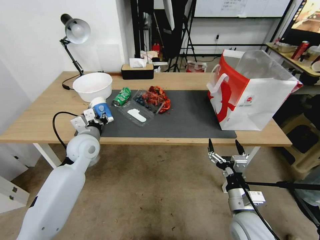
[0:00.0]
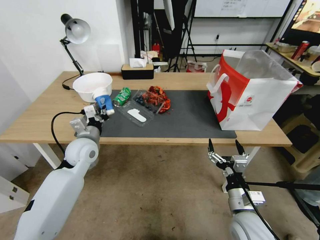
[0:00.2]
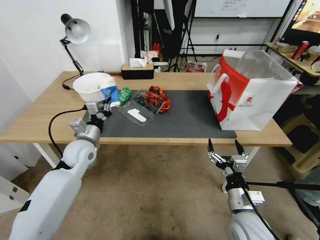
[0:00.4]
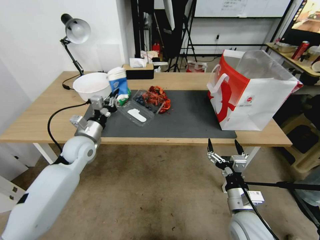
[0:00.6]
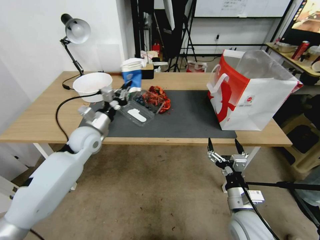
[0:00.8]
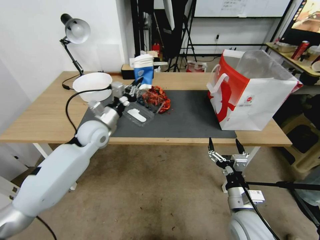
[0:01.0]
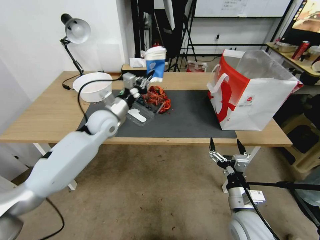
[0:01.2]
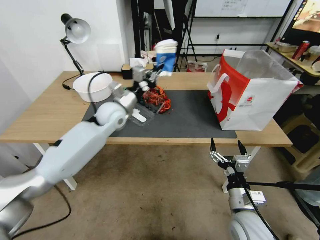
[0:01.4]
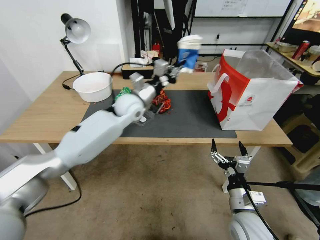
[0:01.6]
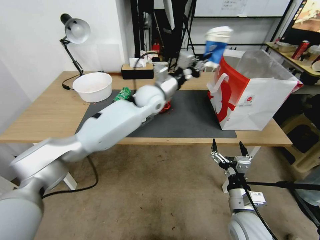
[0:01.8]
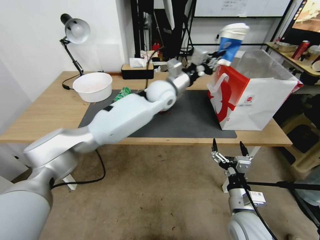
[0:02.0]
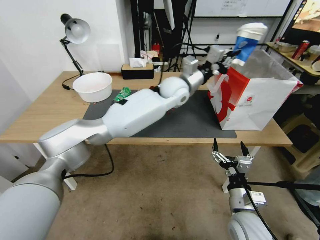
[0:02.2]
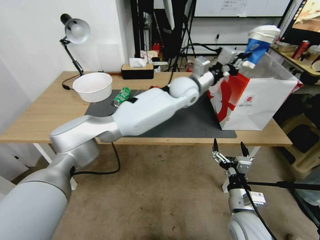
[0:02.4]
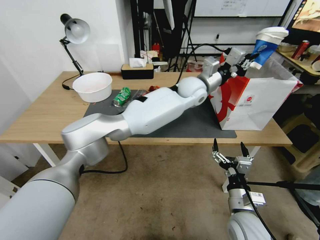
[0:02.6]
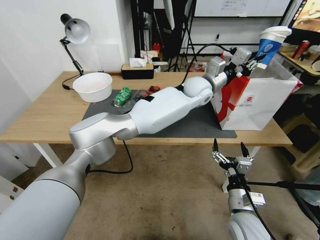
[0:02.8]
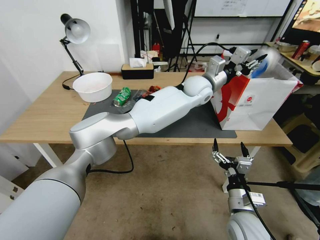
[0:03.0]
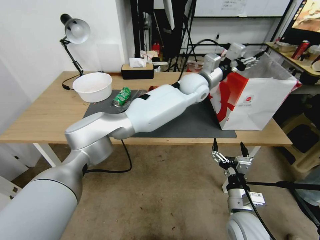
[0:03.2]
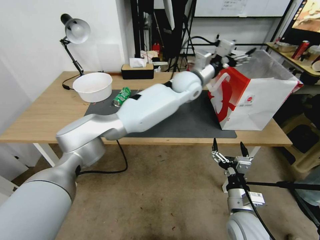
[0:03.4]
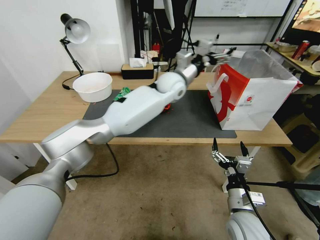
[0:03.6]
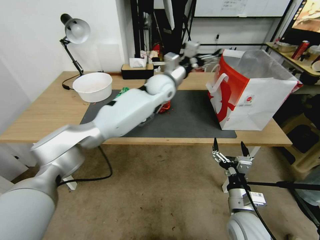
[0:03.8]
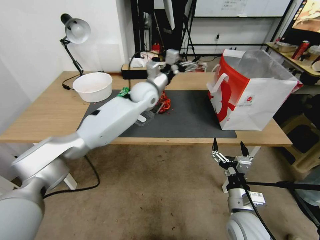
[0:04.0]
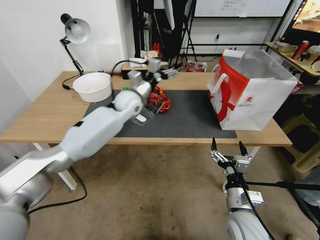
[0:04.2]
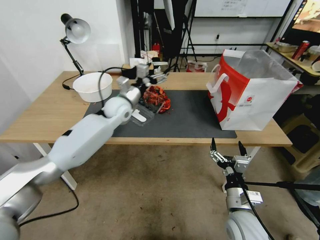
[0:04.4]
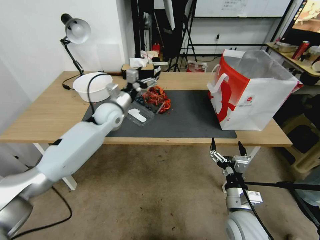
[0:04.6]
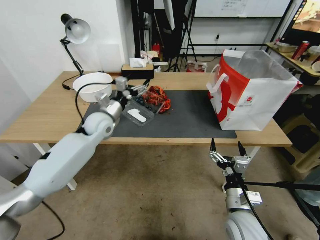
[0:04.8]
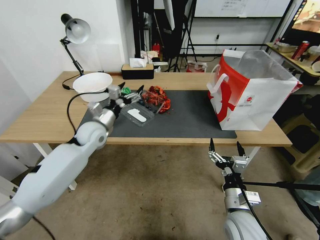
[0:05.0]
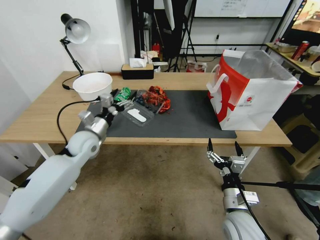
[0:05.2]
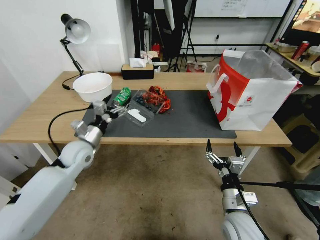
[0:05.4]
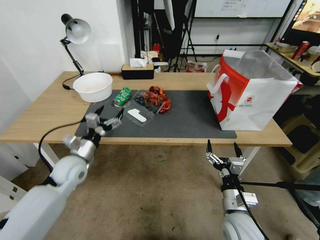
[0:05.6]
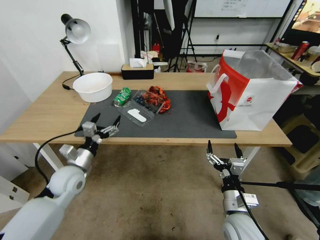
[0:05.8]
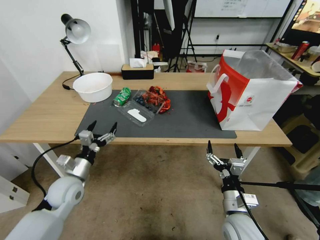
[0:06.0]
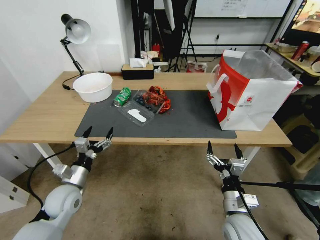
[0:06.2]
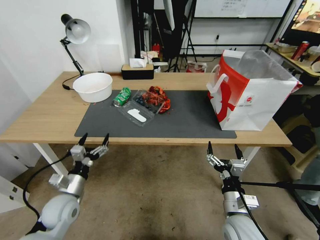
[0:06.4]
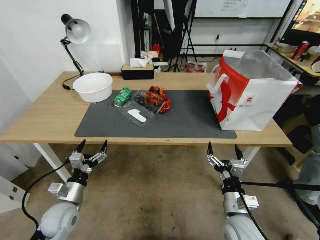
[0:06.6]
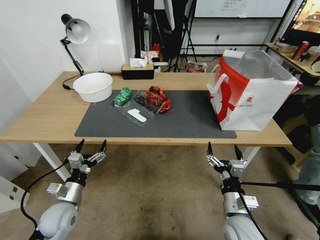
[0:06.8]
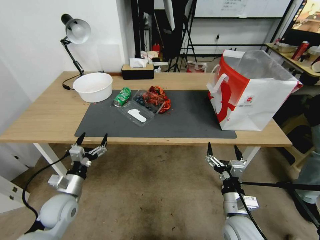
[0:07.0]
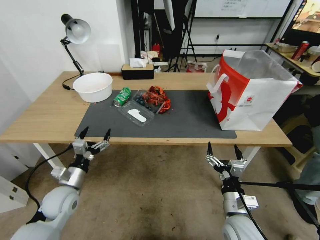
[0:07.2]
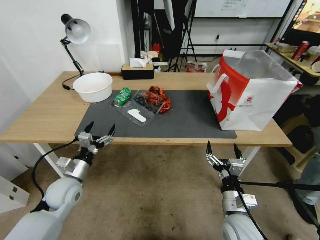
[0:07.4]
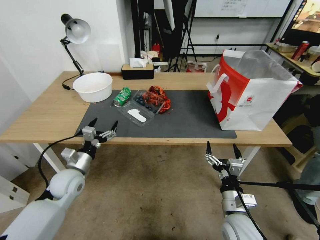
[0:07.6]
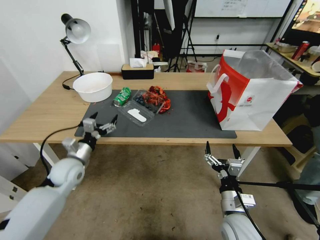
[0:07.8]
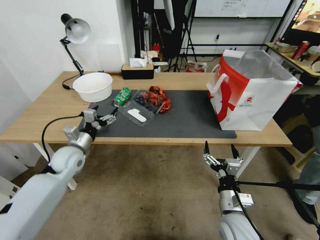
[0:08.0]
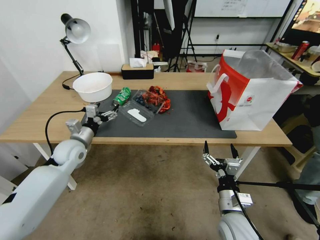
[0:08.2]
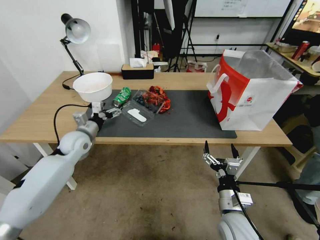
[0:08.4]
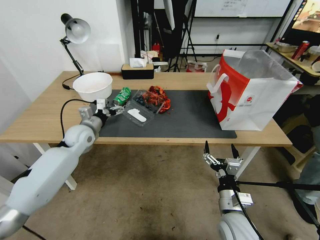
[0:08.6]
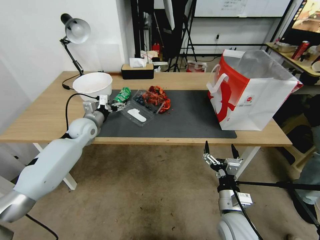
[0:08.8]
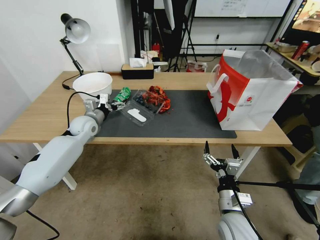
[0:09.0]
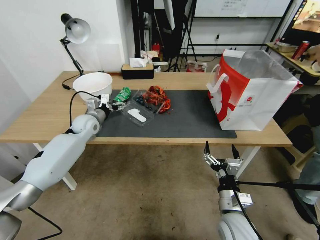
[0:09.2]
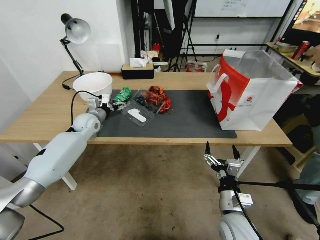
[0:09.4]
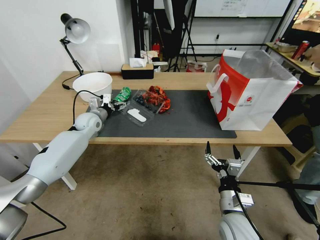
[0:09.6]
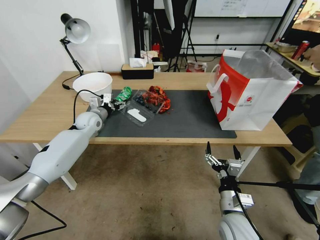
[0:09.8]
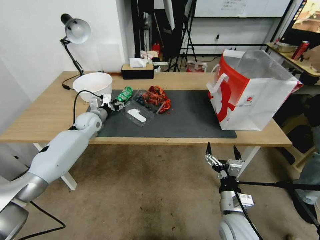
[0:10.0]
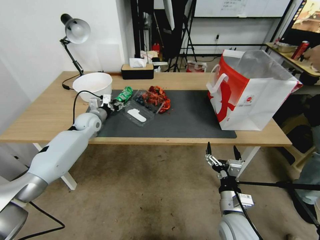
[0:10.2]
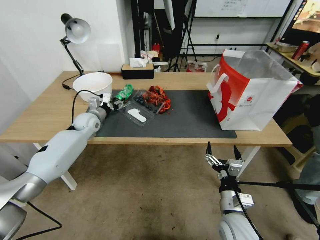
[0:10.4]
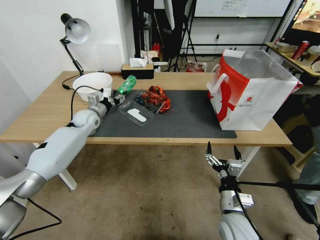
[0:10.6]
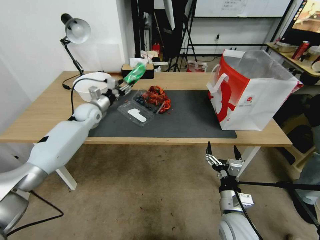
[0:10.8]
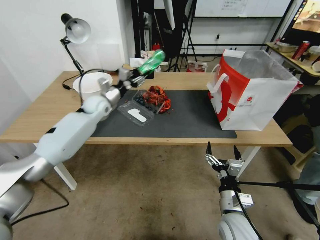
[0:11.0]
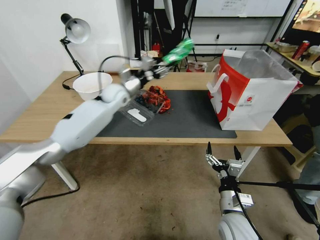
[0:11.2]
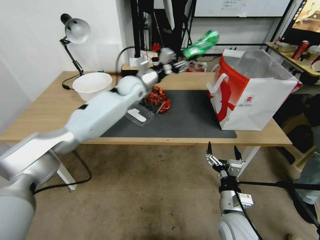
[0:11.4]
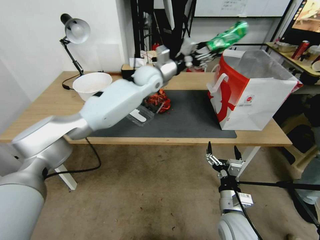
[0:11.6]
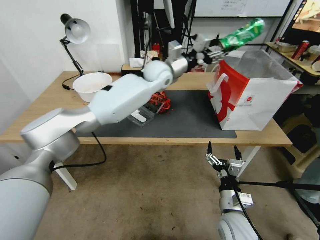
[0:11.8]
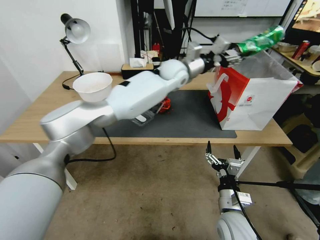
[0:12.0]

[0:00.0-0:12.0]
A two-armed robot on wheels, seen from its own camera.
0:00.0 to 0:01.6: The left gripper is displaced to the right, forward and upward by approximately 20 cm.
0:01.6 to 0:03.0: The left gripper travels to the right by about 25 cm, and opens.
0:03.0 to 0:04.4: The left gripper moves to the left, approximately 30 cm, and opens.
0:04.4 to 0:06.0: The left gripper goes some 30 cm backward, to the left and downward.
0:06.0 to 0:07.6: The left gripper travels backward and back again, some 5 cm each way.
0:07.6 to 0:09.0: The left gripper goes some 20 cm forward.
0:09.0 to 0:10.4: The left gripper closes up.
0:10.4 to 0:12.0: The left gripper heads to the right and upward, covering about 40 cm.

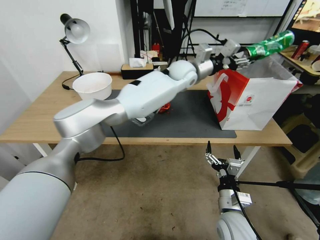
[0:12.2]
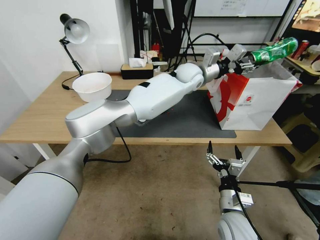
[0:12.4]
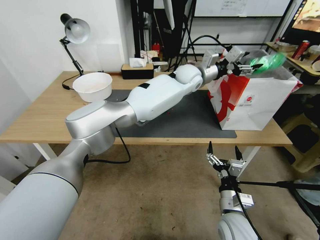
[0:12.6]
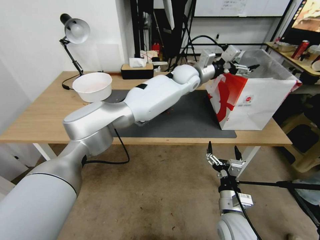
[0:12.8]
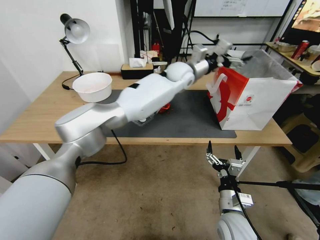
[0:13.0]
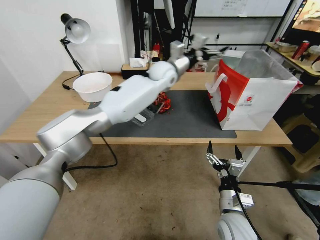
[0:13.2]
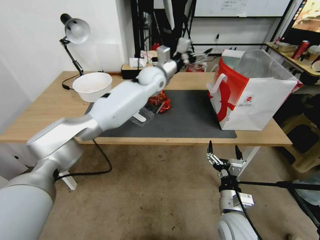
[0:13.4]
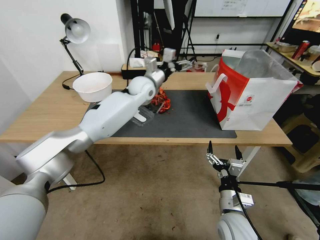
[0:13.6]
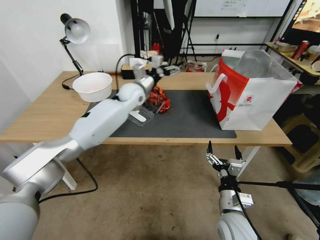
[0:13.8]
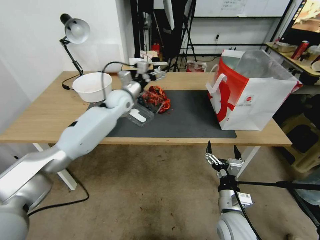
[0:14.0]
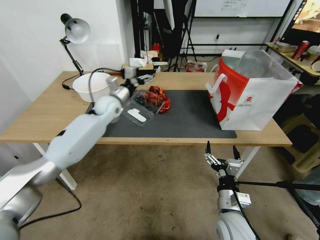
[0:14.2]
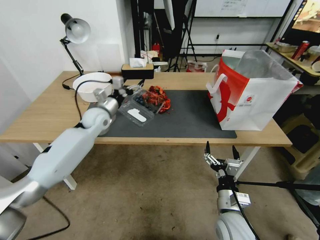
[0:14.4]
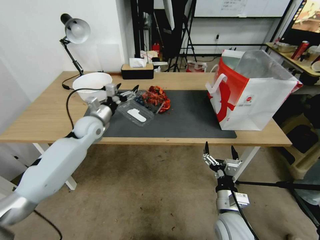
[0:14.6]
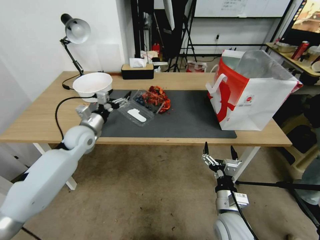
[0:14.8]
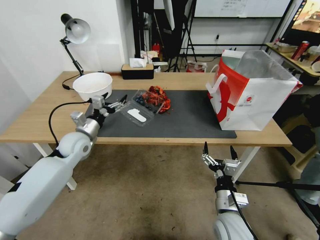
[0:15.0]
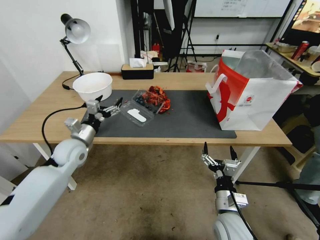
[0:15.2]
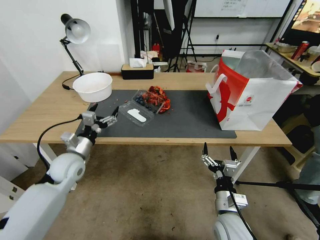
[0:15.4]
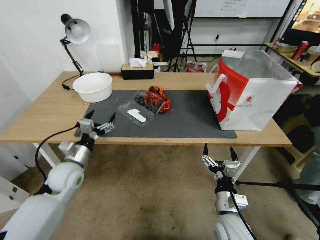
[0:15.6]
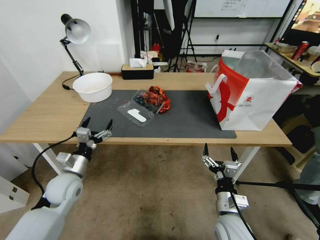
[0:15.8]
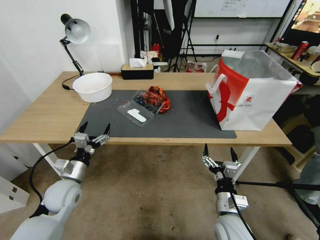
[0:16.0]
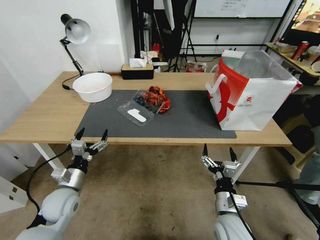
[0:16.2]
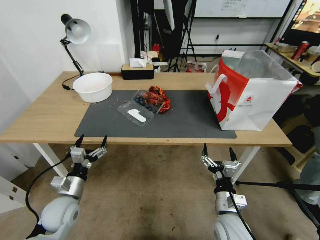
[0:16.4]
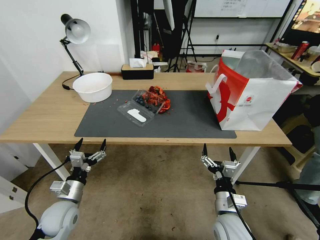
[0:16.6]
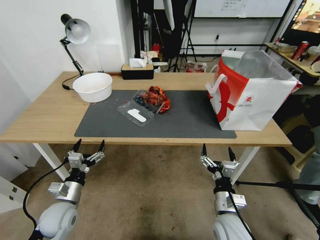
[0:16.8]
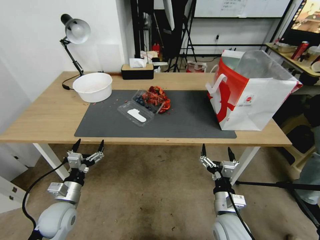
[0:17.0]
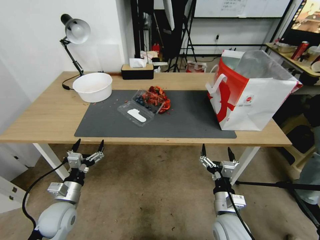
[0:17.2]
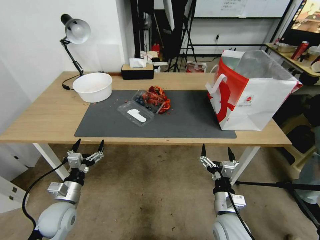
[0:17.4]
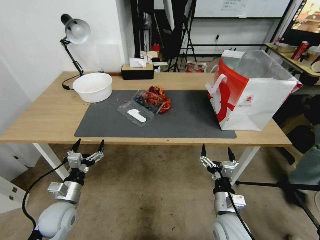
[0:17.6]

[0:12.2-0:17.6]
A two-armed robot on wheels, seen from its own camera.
0:12.2 to 0:13.6: The left gripper moves to the left, roughly 15 cm, and opens up.
0:13.6 to 0:15.0: The left gripper is displaced to the left, backward and downward by about 30 cm.
0:15.0 to 0:16.2: The left gripper is displaced backward and downward by about 20 cm.
0:16.2 to 0:17.6: The grippers make only small movements.

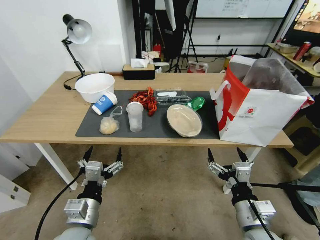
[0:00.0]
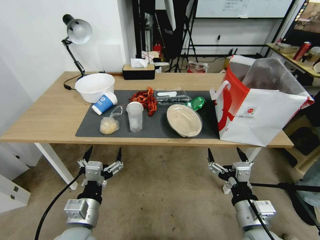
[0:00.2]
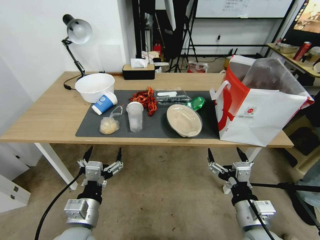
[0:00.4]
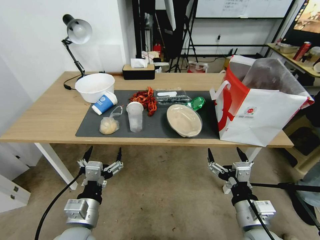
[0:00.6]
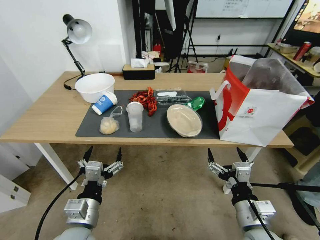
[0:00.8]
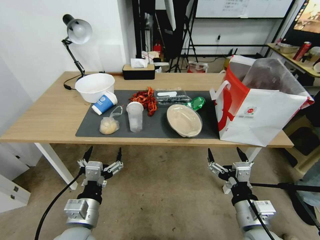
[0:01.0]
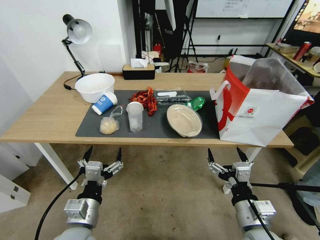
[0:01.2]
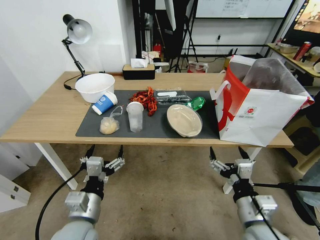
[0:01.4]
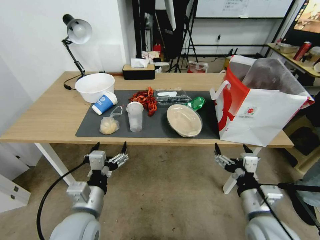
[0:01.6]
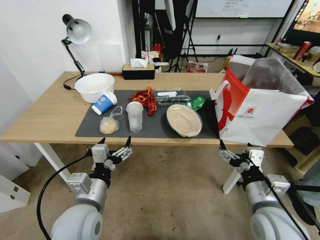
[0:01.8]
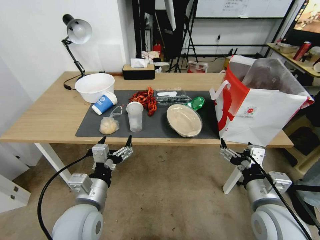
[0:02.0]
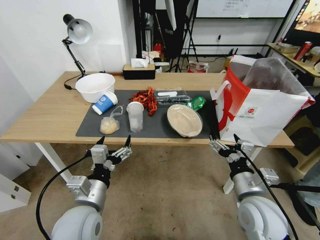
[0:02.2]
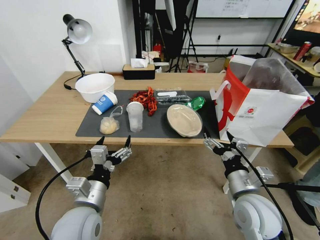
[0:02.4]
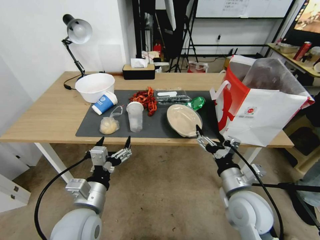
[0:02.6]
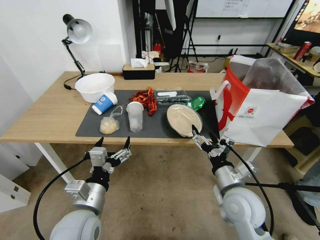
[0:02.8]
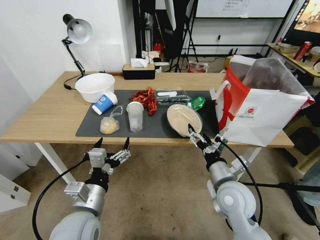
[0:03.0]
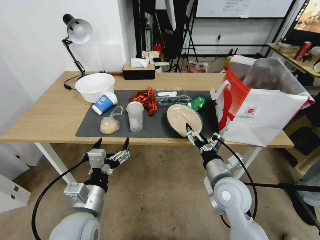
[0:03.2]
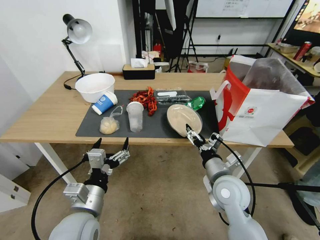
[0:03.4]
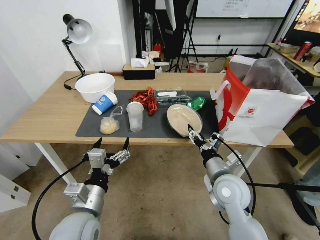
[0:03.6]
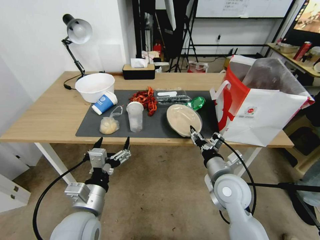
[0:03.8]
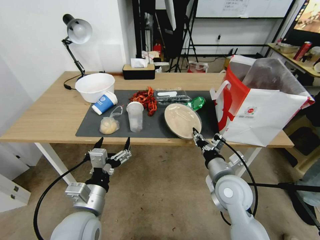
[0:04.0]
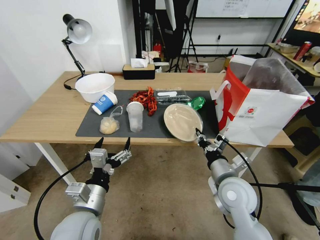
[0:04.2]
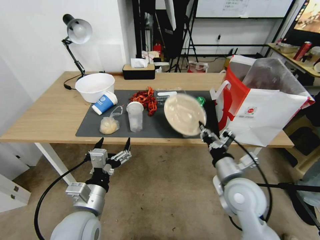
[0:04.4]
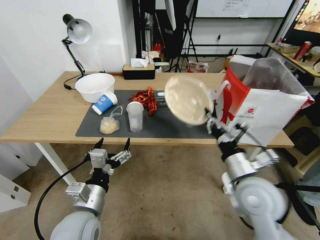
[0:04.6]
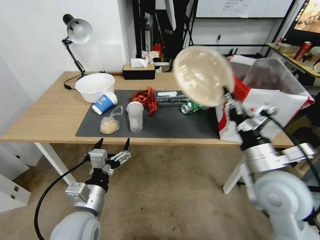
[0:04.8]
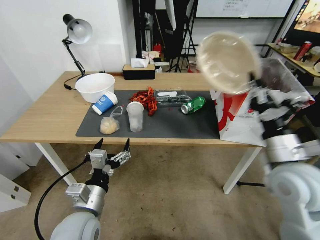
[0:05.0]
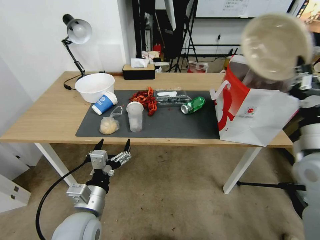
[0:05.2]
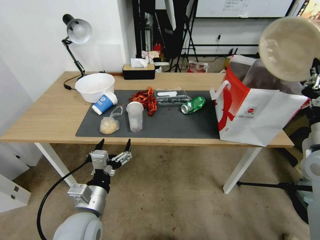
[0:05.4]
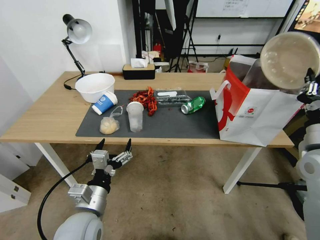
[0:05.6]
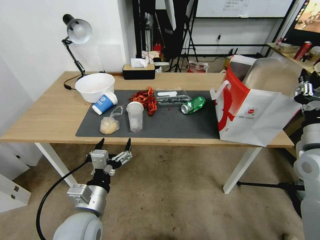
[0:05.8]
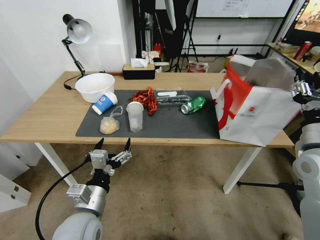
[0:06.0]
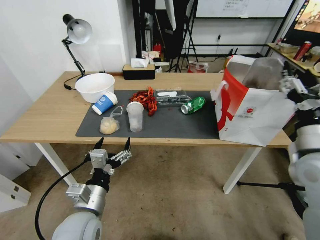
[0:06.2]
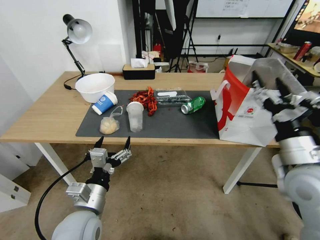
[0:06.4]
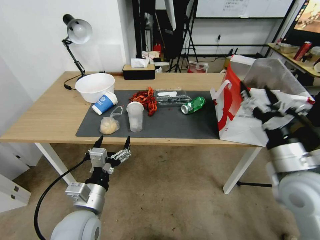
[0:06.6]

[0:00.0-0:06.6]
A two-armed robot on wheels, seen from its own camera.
0:01.6 to 0:03.2: The right gripper moves forward and to the left, about 10 cm.
0:03.2 to 0:05.0: The right gripper moves upward and to the right, about 15 cm, and closes its fingers.
0:05.0 to 0:06.6: The right gripper goes to the right and returns, roughly 10 cm each way, and opens.
